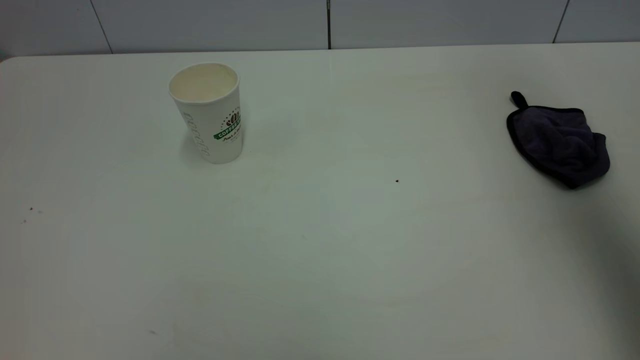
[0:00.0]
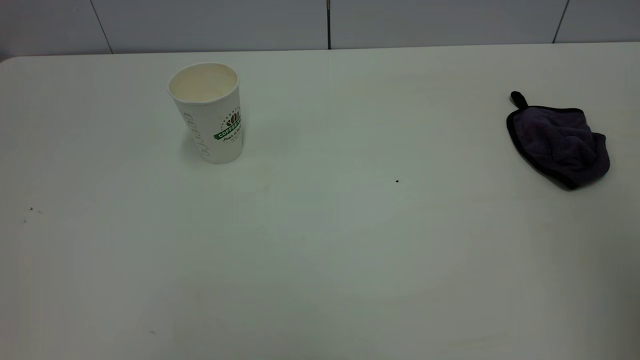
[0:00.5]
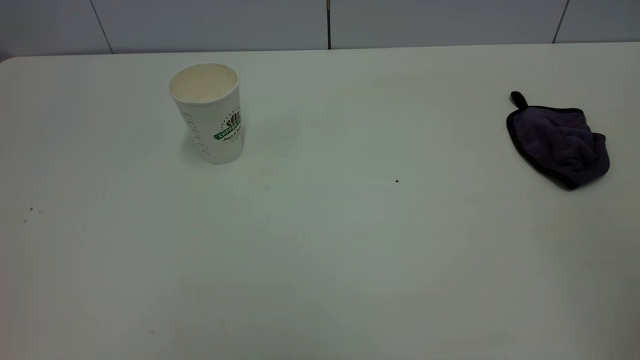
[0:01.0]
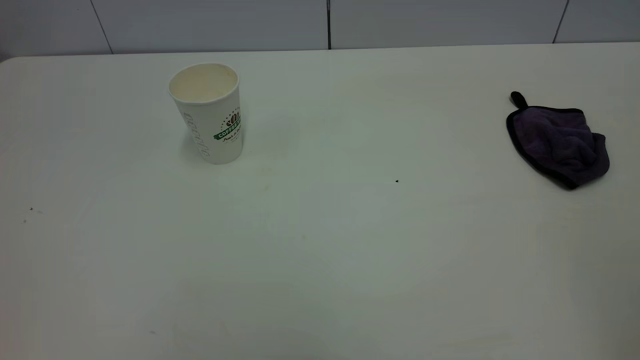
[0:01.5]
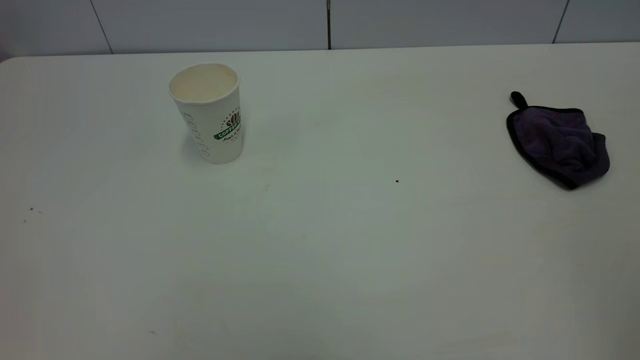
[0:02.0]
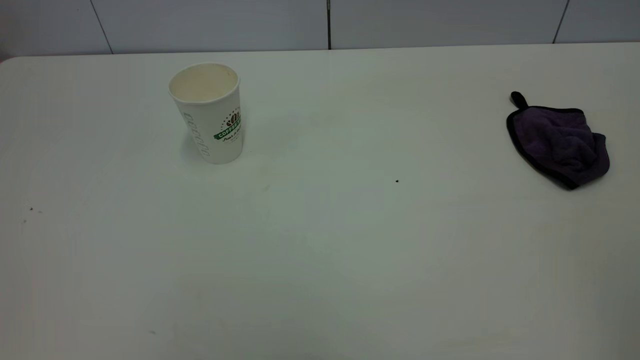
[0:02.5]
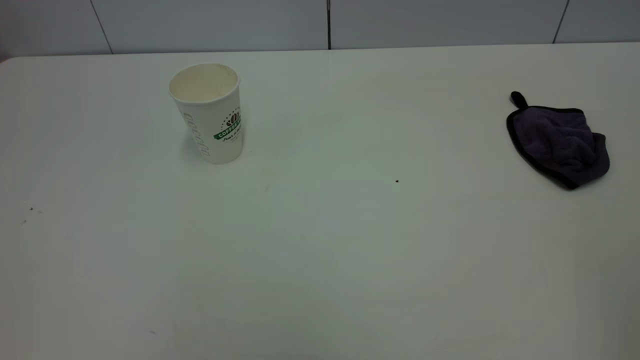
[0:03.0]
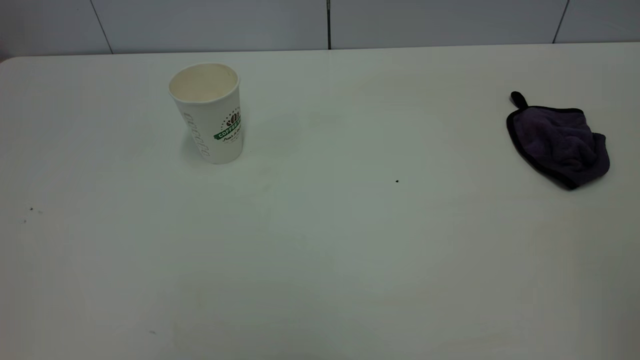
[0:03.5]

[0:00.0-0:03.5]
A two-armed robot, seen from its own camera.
Task of the whole recording: the left gripper pick up the fallen cup and place it upright, the right gripper grasp the purple rag and wipe the tea stain on the table, the right gripper put the purple rag back in its original position.
0:00.0 to 0:02.0: The right gripper travels backward by about 30 cm.
